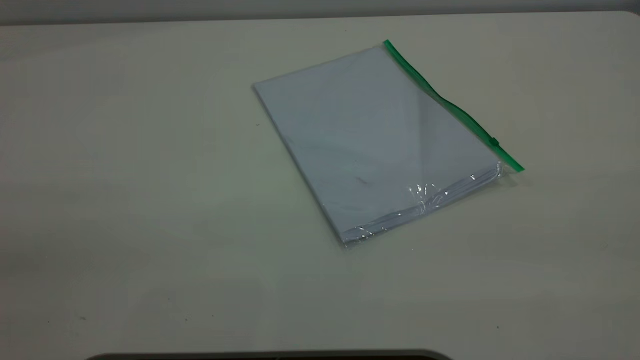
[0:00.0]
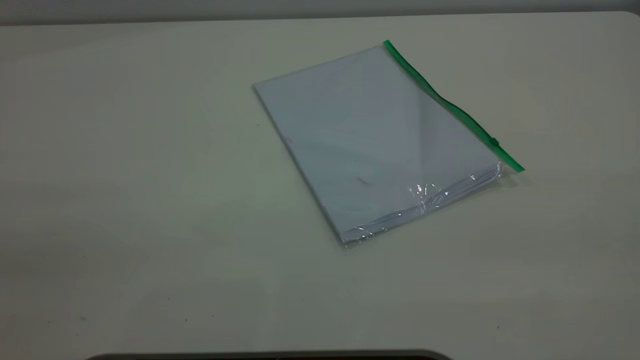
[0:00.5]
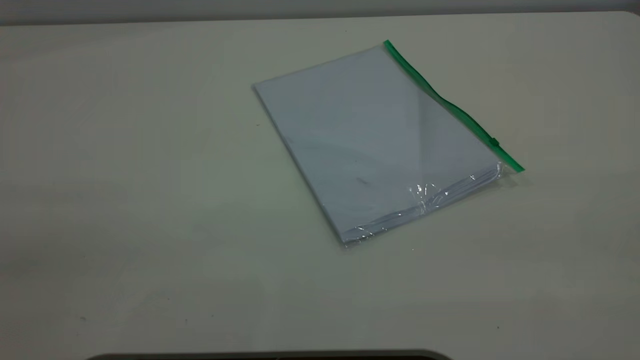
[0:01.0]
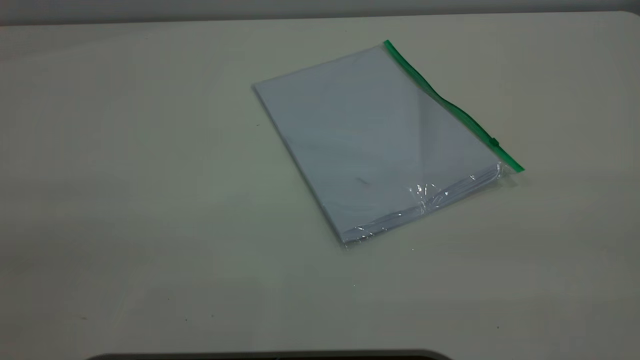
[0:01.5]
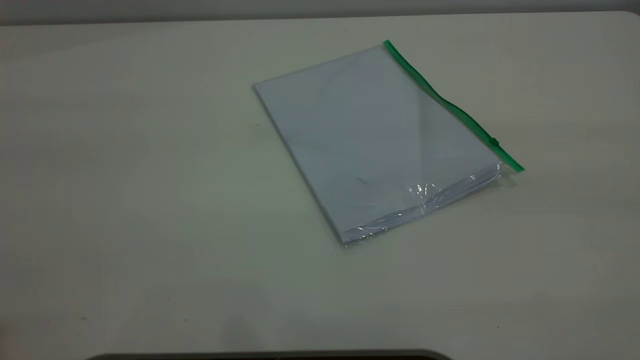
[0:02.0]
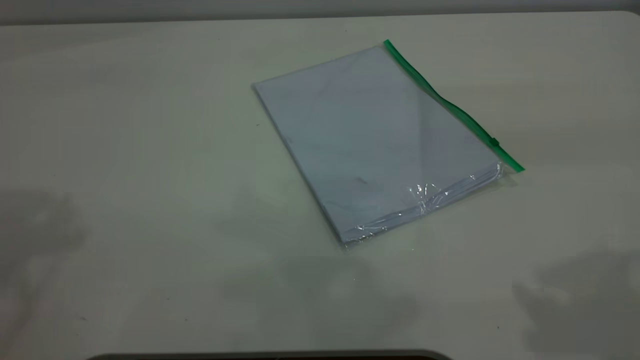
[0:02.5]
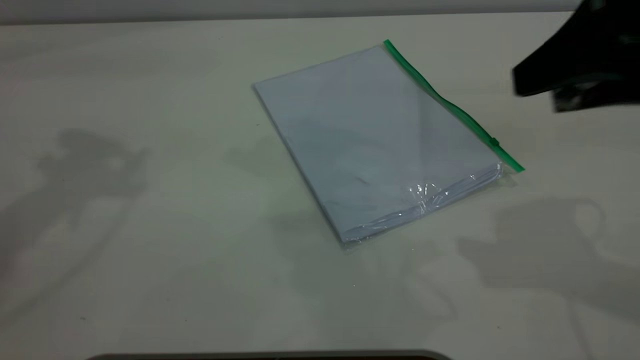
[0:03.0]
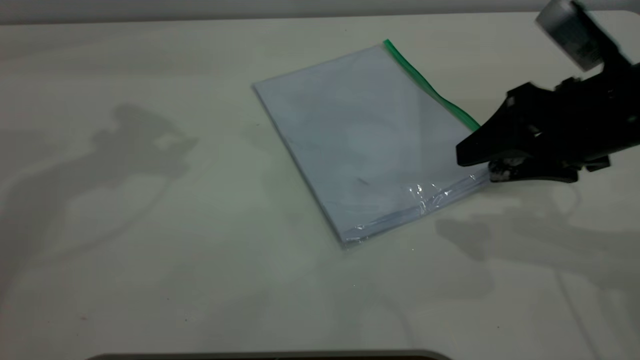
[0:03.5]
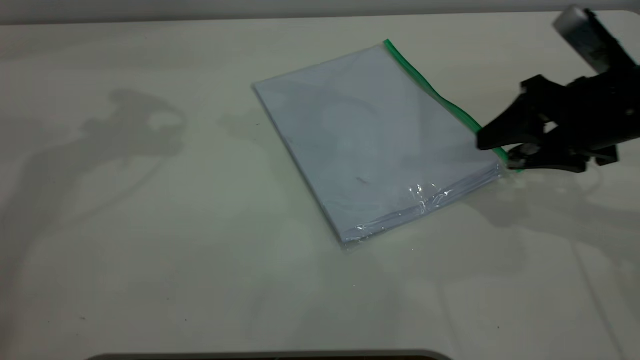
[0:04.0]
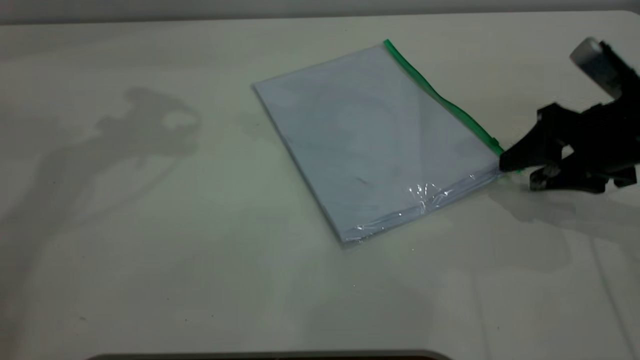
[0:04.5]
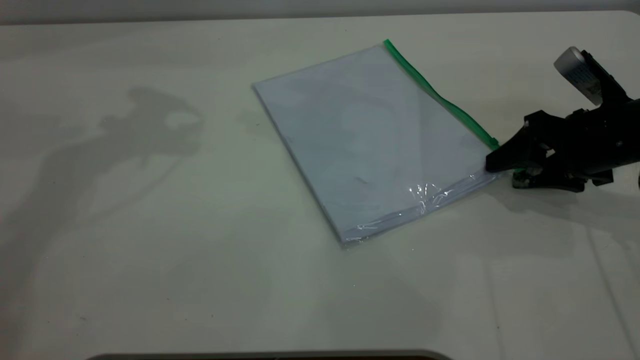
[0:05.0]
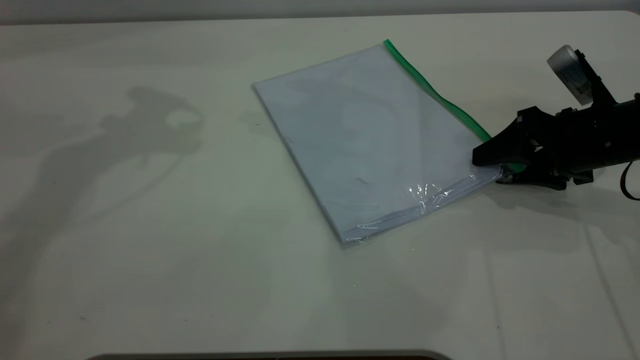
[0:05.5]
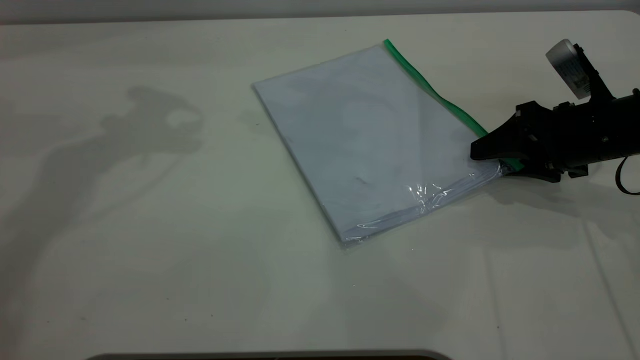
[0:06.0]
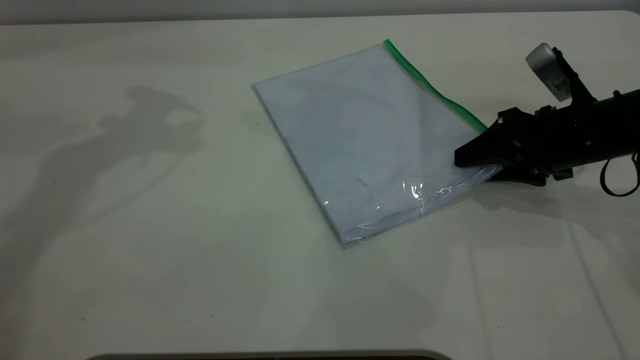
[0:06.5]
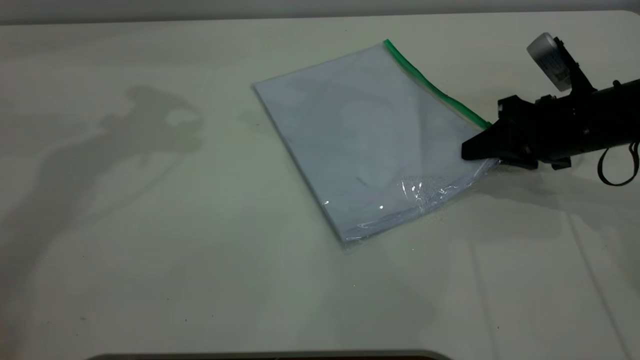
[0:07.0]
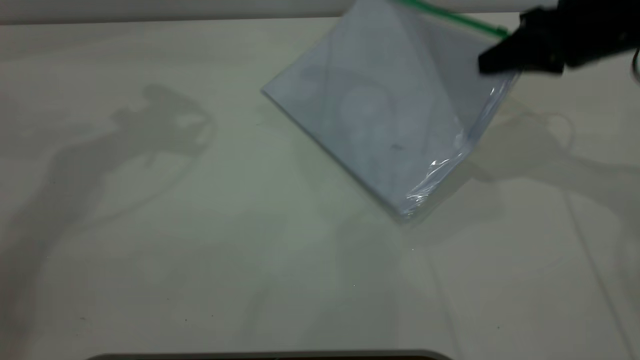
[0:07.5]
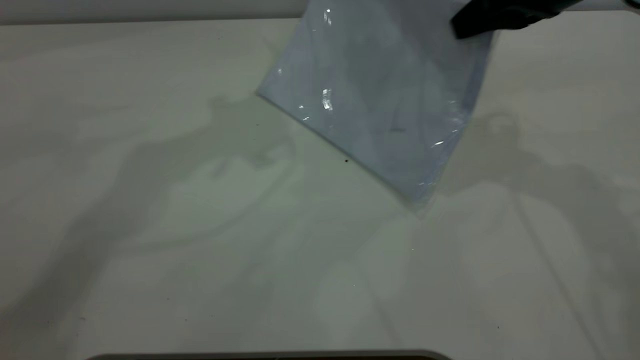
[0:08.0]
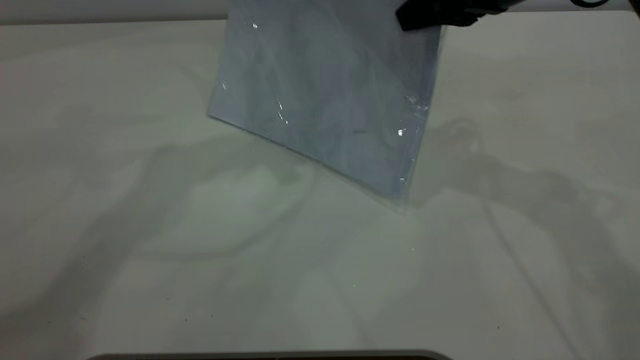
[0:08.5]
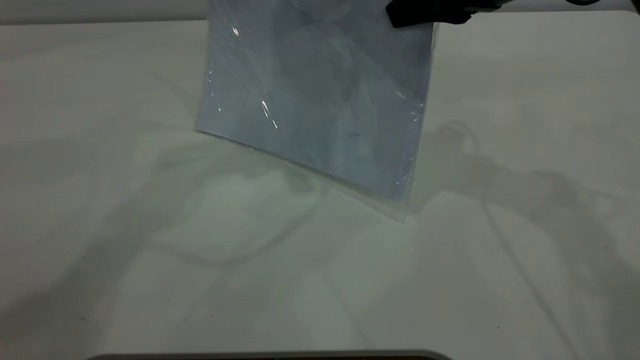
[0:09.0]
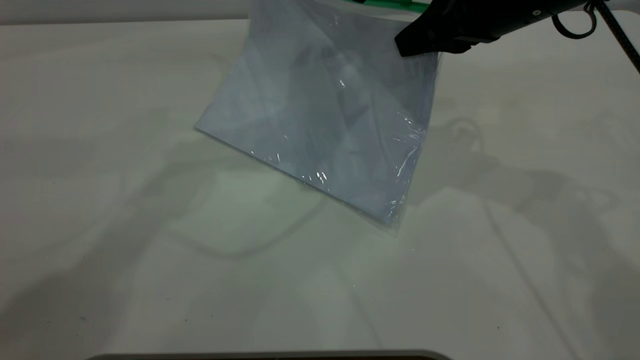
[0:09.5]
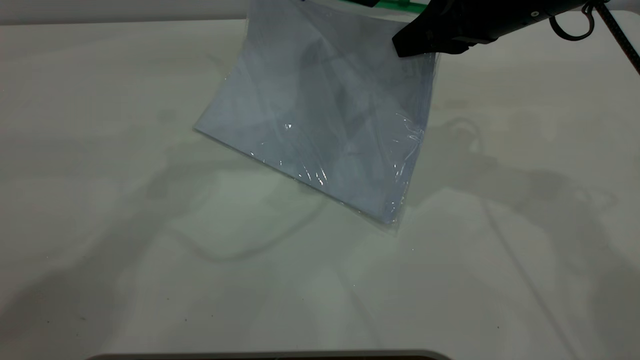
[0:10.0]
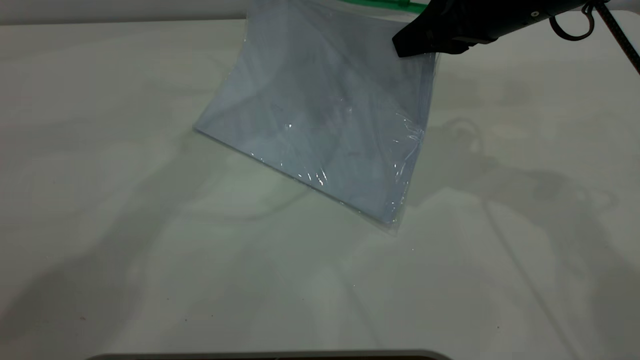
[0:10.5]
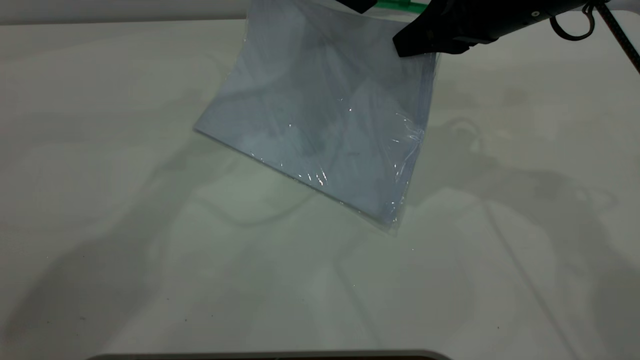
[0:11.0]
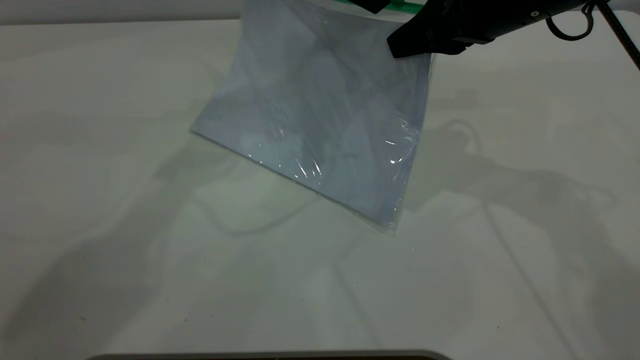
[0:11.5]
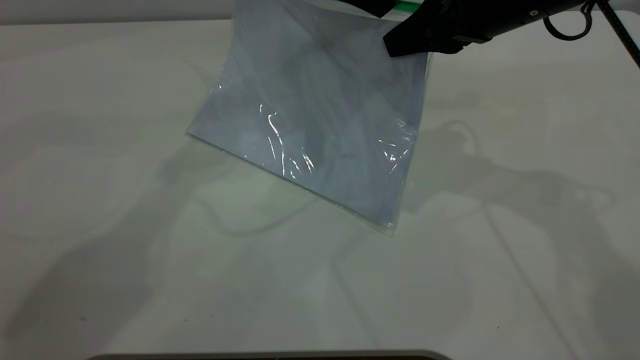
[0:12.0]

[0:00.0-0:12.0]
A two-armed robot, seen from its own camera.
Step, 0:00.0 to 0:07.0: Pick up the transparent plastic bag with the right gripper.
0:02.0 to 0:04.0: The right gripper shifts roughly 35 cm downward and forward.
0:04.0 to 0:06.0: The right gripper travels downward by roughly 5 cm.
0:06.0 to 0:08.0: The right gripper is displaced upward and to the left by about 20 cm, and closes; the left gripper is displaced to the right by roughly 10 cm.
0:08.0 to 0:10.0: The left gripper is displaced downward and to the right by about 10 cm.
0:10.0 to 0:12.0: There are only small adjustments of the grippers.

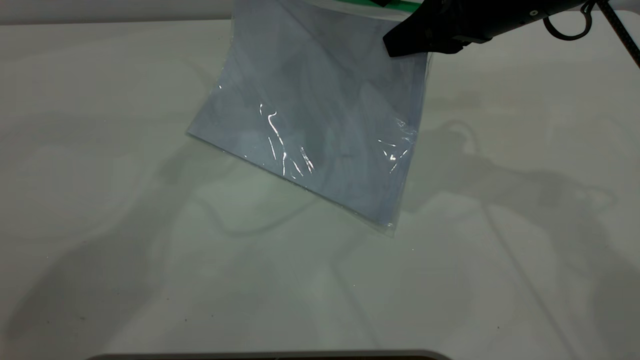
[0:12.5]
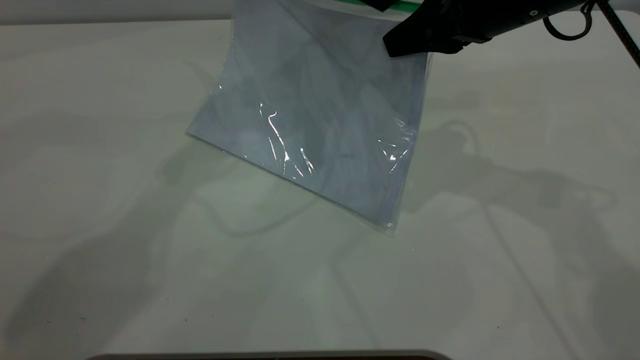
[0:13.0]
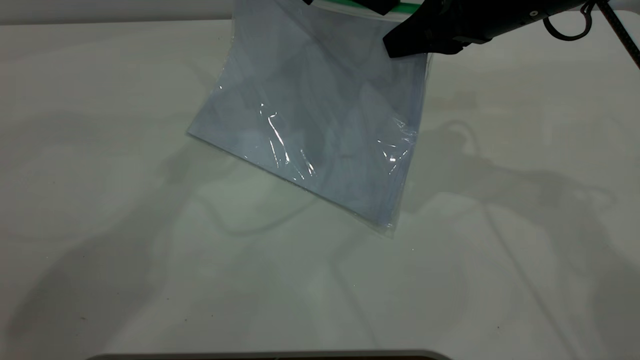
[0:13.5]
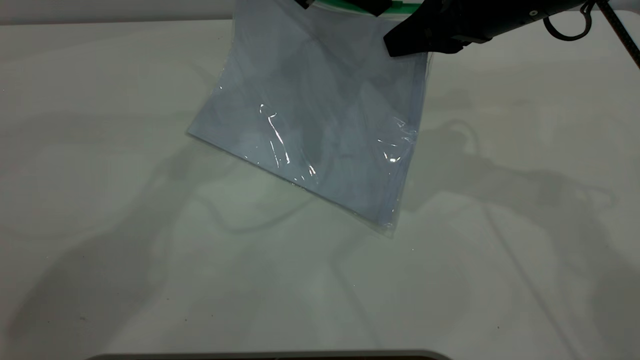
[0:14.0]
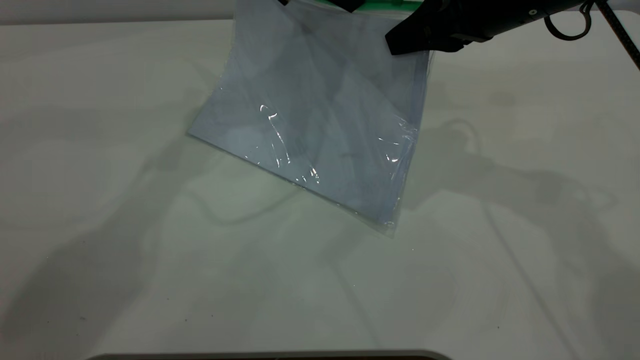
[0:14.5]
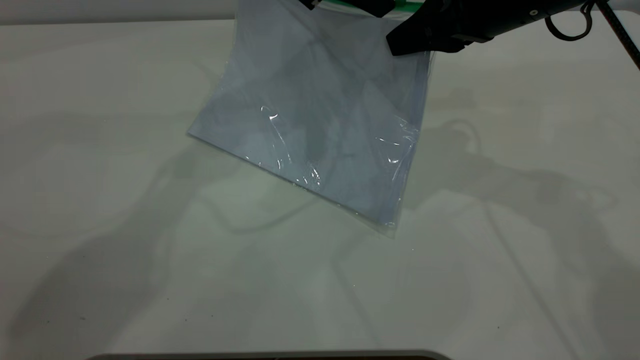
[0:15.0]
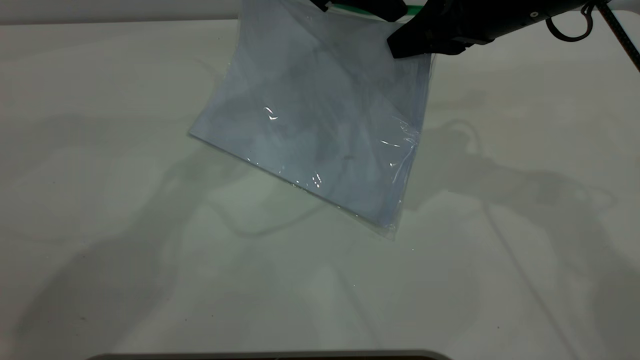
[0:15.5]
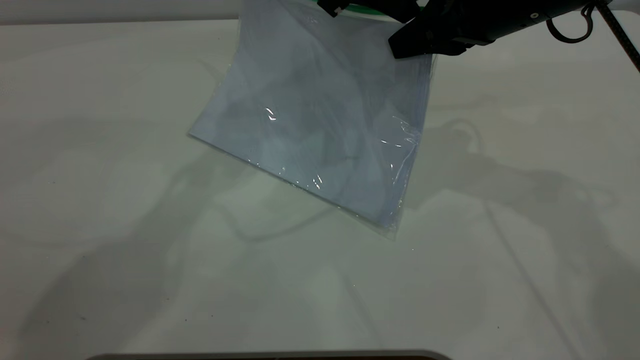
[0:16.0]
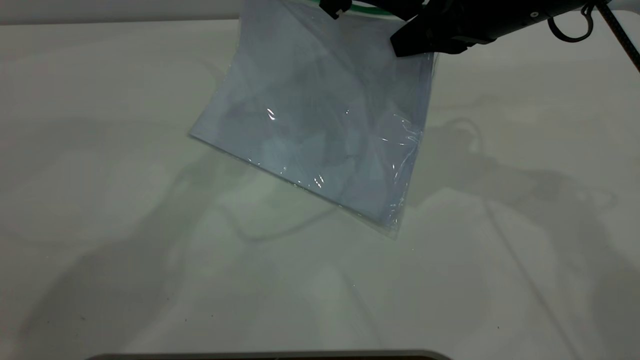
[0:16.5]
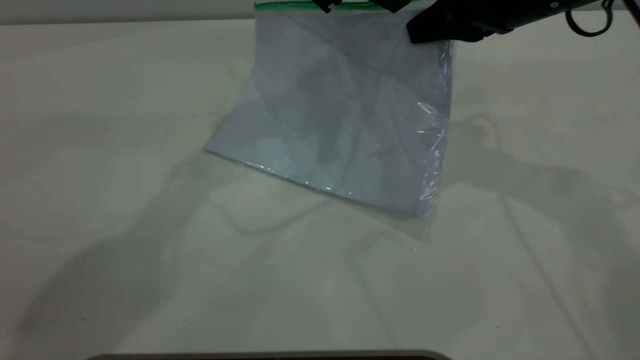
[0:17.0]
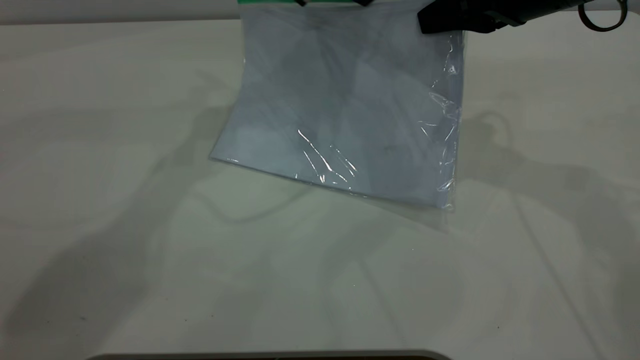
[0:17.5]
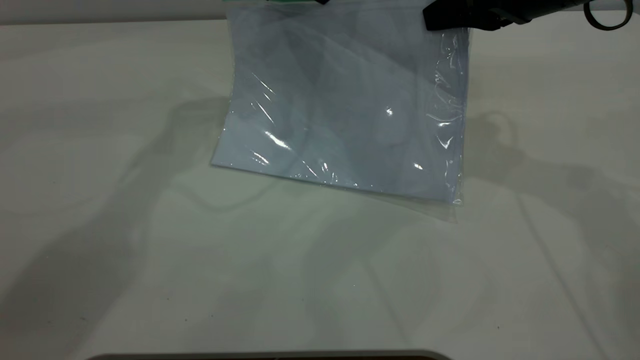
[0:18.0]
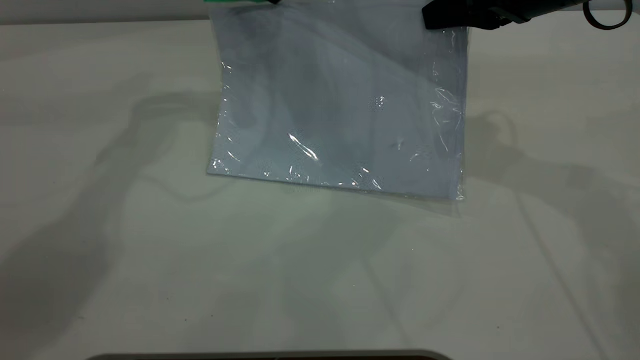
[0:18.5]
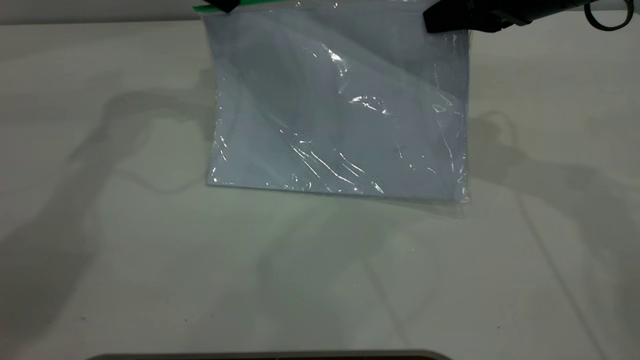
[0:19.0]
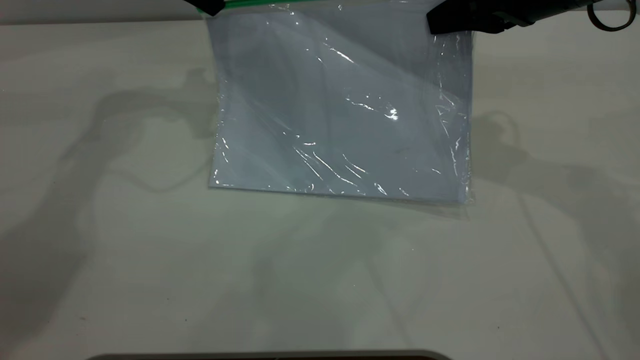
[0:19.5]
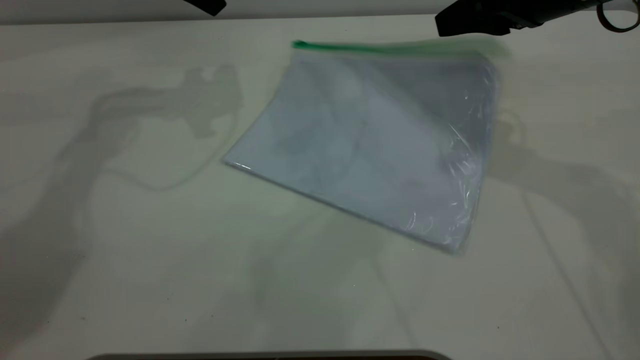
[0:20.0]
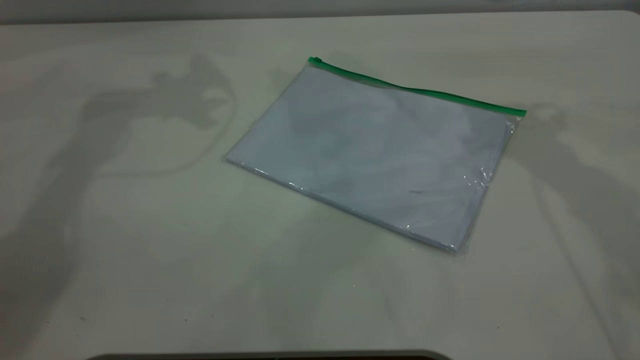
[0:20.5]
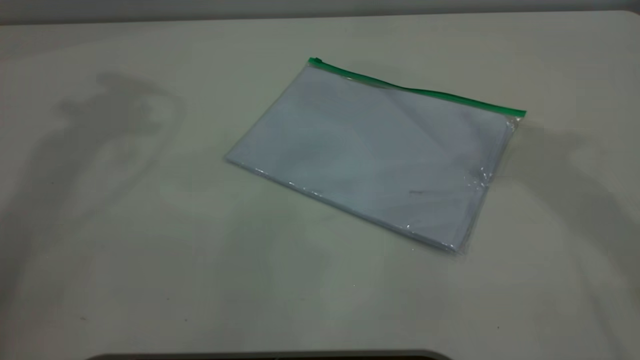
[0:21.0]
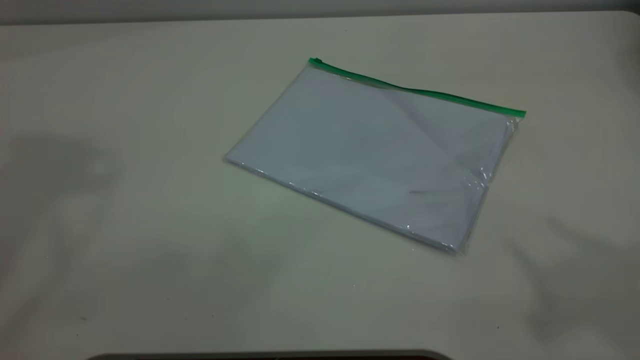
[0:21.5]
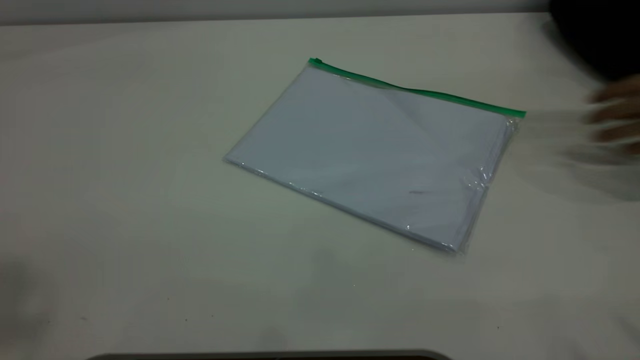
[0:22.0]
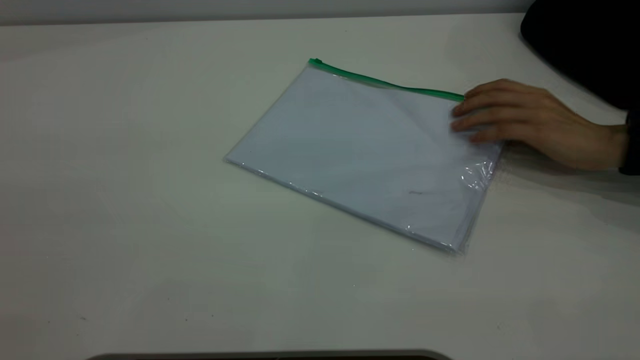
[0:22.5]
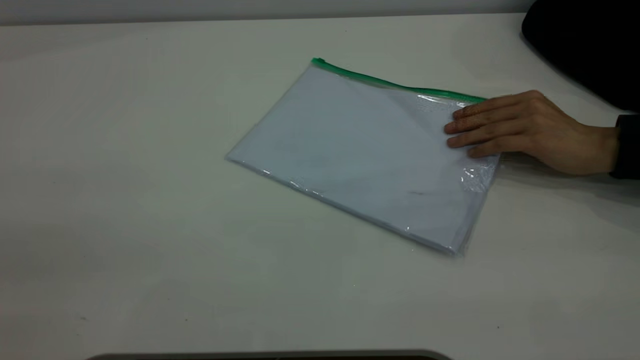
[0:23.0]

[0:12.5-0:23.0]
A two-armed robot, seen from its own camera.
Step, 0:12.5 to 0:19.5: Pulling up the zipper on the transparent plastic bag with the left gripper to close it.
0:14.5 to 0:16.5: The left gripper shifts by some 5 cm, and opens, then closes again.
0:16.5 to 0:19.0: The left gripper heads to the left, covering roughly 20 cm.
0:19.0 to 0:21.0: Both grippers travel together upward, some 25 cm. The right gripper opens. The left gripper opens up.
0:21.0 to 0:23.0: The right gripper goes roughly 30 cm backward.
